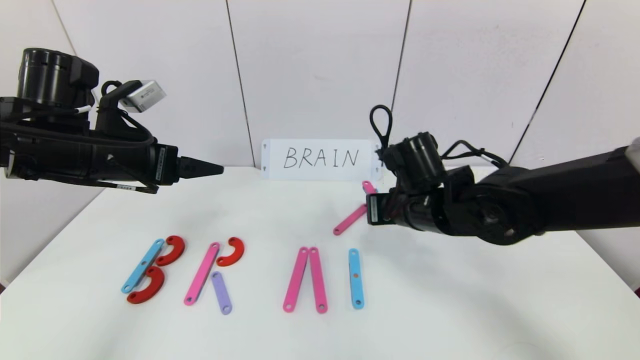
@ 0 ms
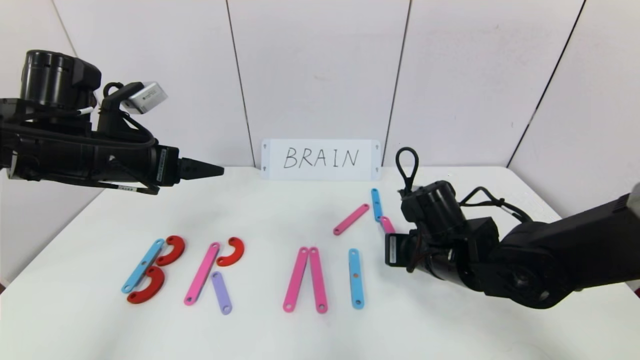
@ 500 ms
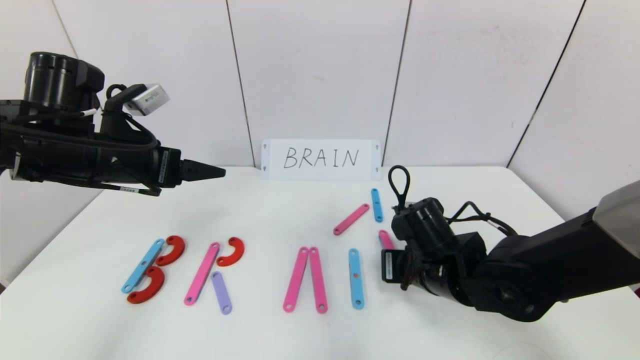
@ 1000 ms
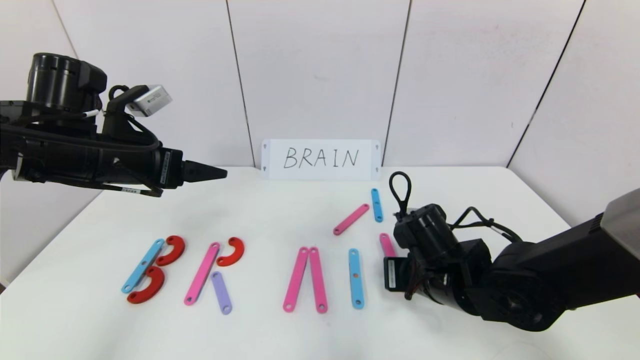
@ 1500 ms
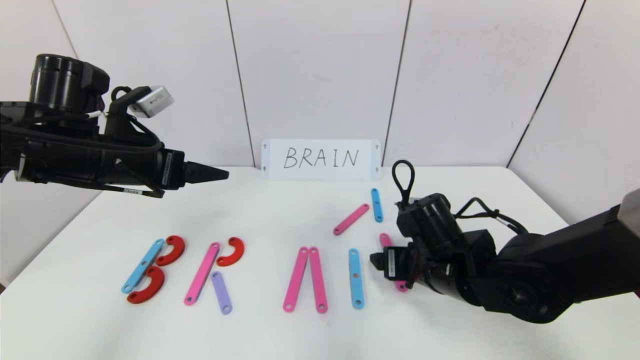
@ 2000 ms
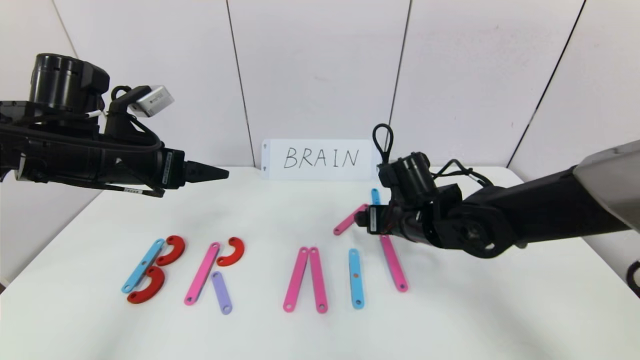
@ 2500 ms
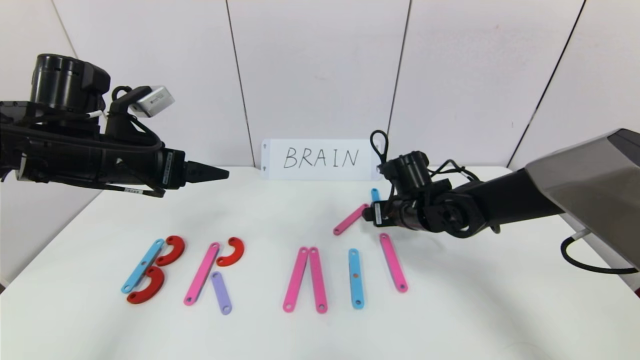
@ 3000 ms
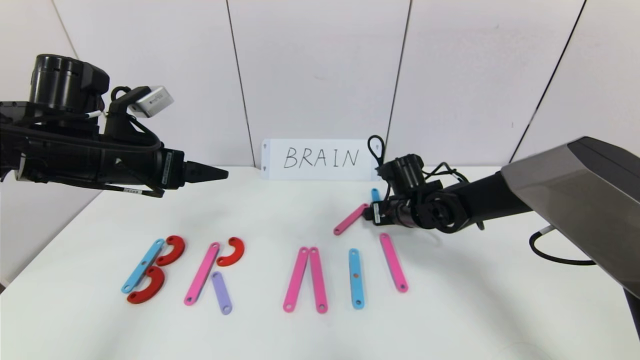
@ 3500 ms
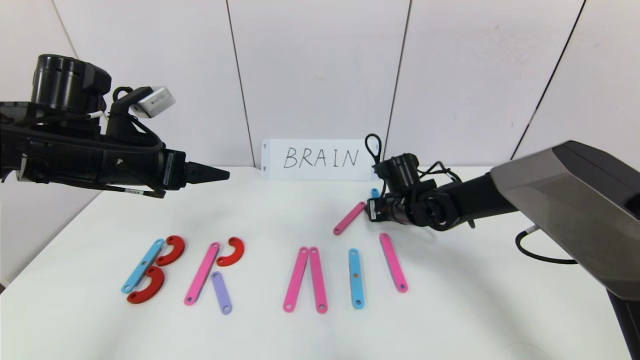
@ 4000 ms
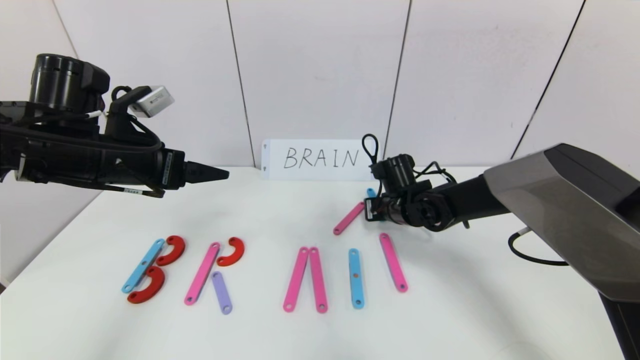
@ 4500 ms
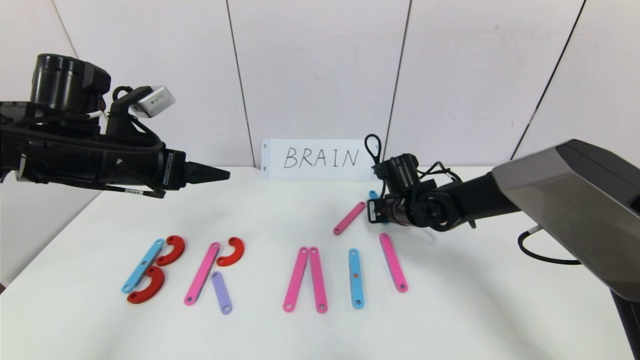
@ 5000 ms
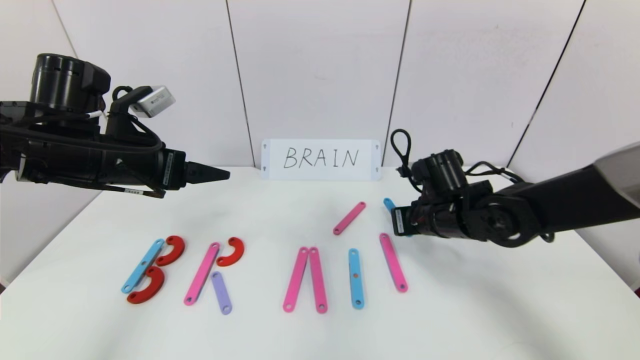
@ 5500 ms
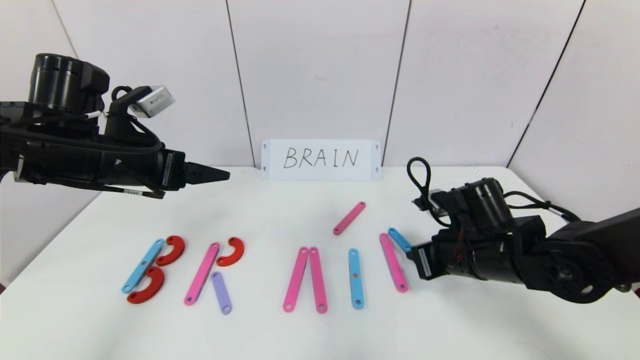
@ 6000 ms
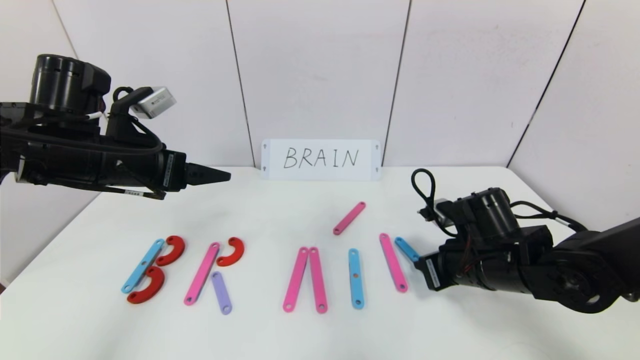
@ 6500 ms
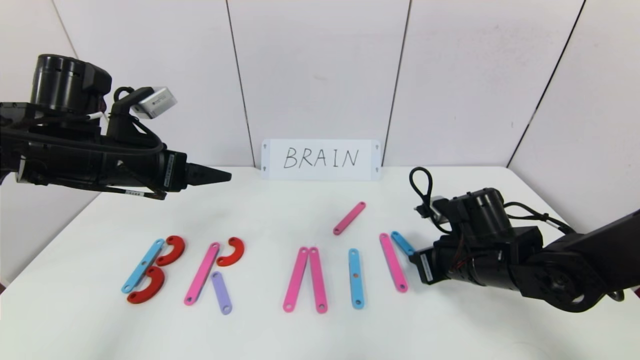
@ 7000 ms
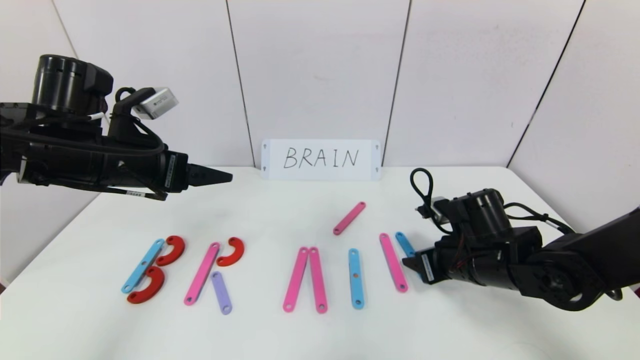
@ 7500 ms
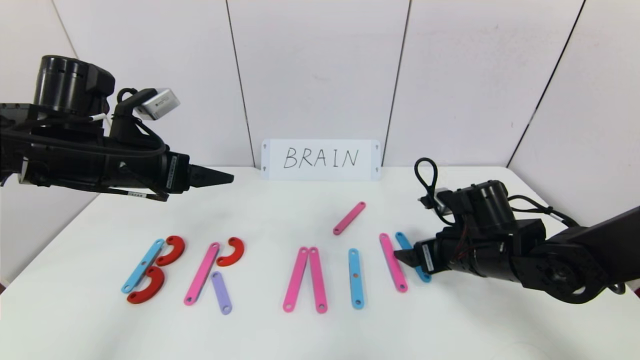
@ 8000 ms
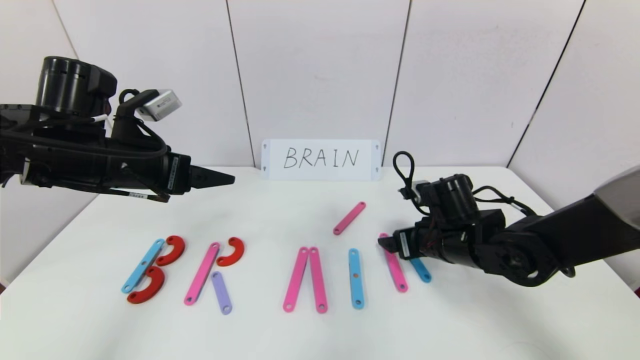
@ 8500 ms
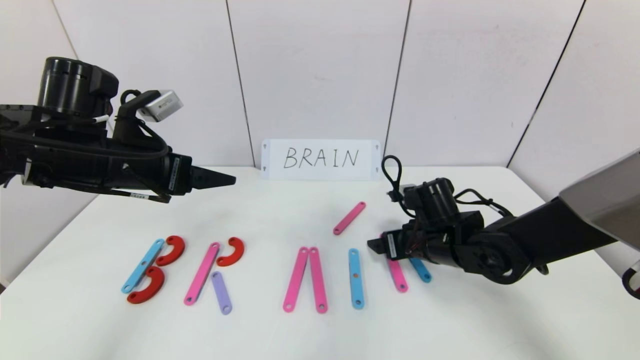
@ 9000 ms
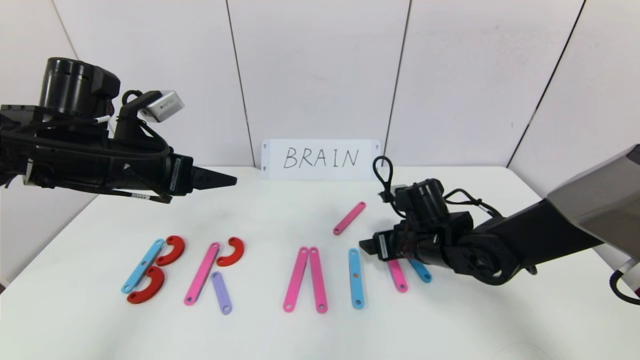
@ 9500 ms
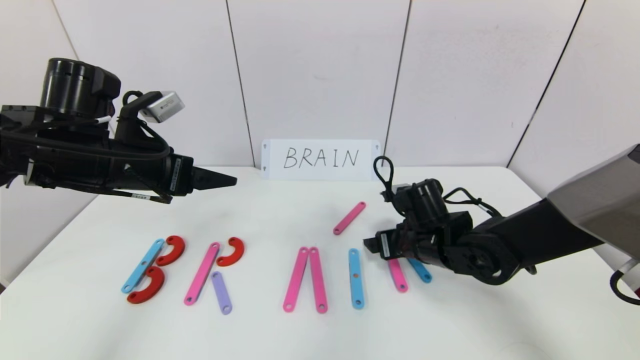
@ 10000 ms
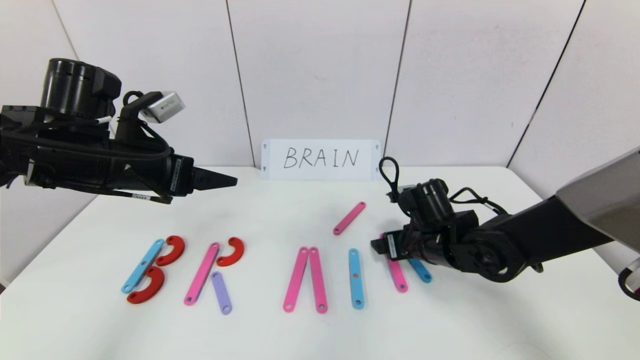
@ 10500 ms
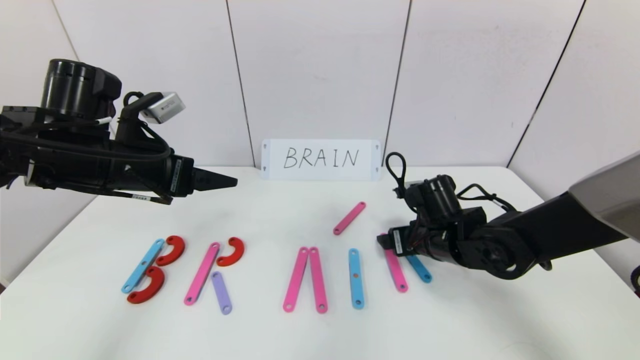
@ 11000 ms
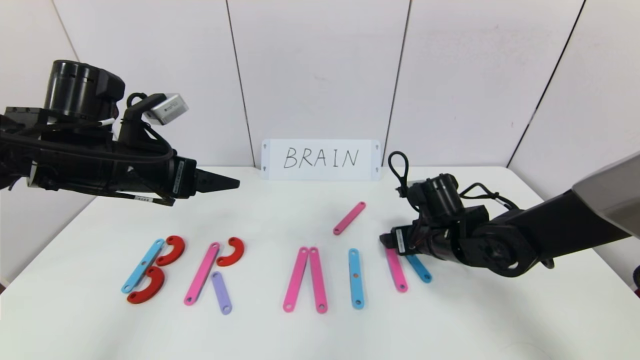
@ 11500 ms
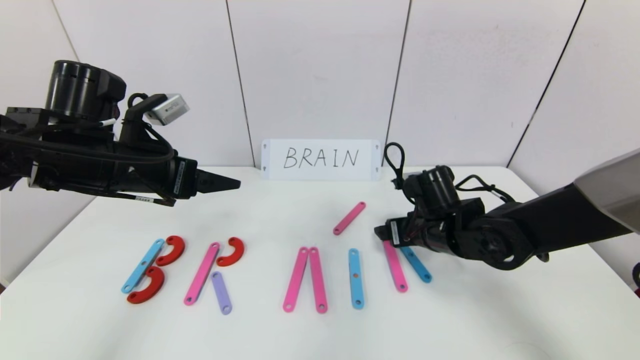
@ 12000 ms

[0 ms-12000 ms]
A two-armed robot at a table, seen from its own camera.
Task of the whole recording: rearrange the word baai as brain.
0 ms to 2000 ms: The right gripper moves downward and backward, some 10 cm, and opens its fingers.
2000 ms to 4000 ms: The right gripper moves forward, approximately 15 cm.
4000 ms to 6000 ms: The right gripper goes roughly 15 cm backward and to the right, and closes.
6000 ms to 8000 ms: The right gripper opens.
8000 ms to 10000 ms: The right gripper goes roughly 5 cm to the left.
10000 ms to 12000 ms: There are only small adjustments of the grippers.

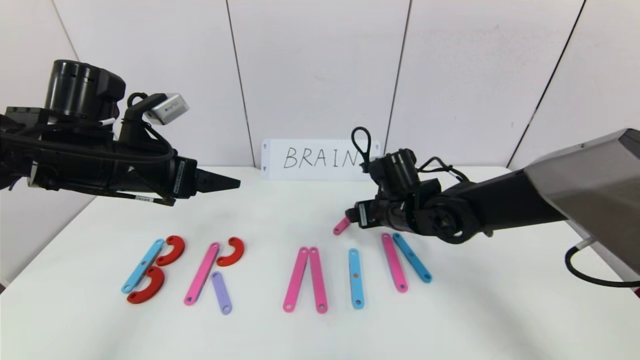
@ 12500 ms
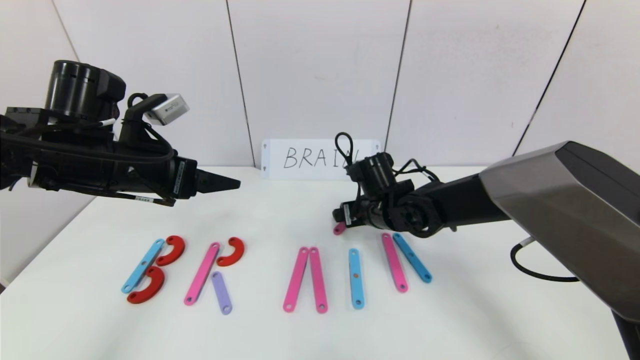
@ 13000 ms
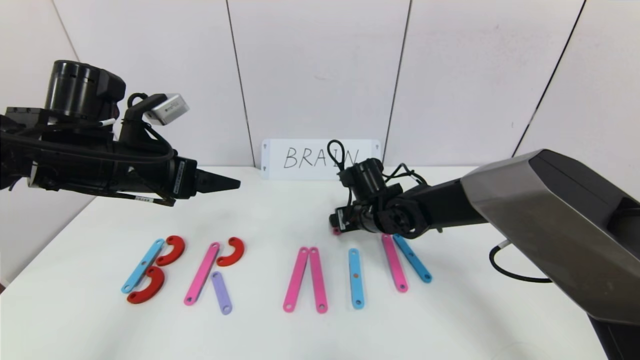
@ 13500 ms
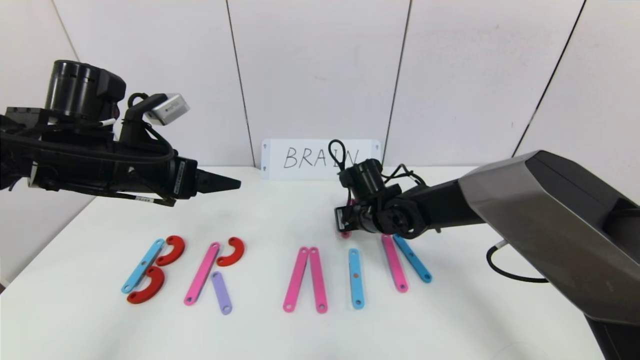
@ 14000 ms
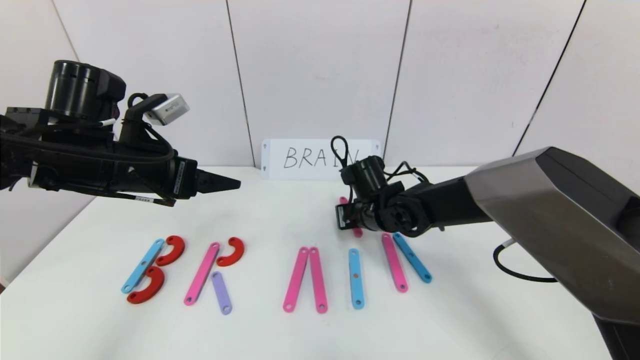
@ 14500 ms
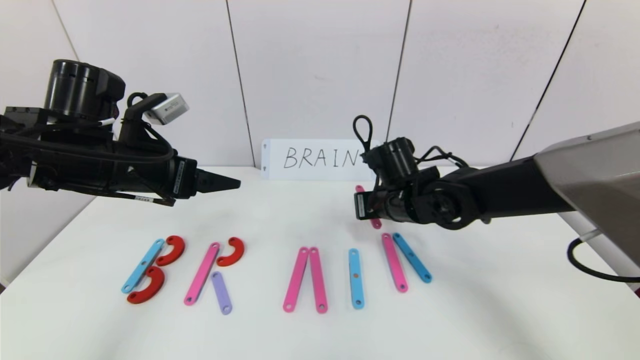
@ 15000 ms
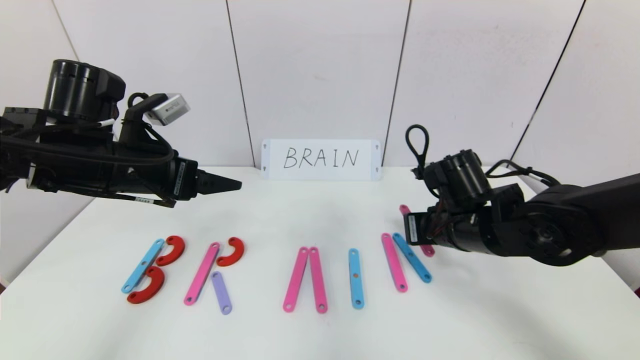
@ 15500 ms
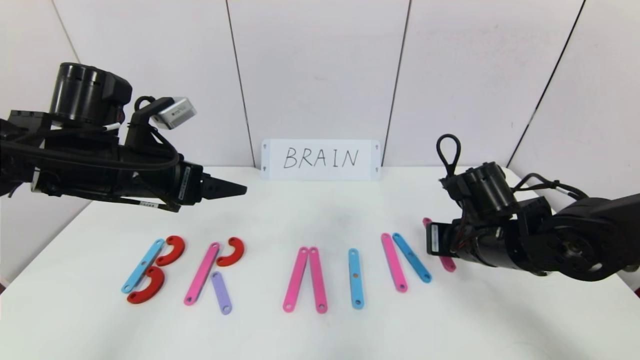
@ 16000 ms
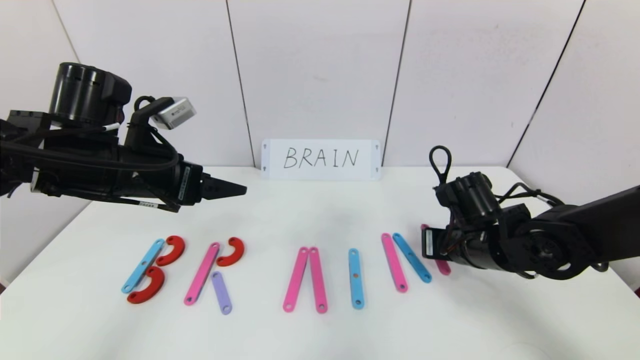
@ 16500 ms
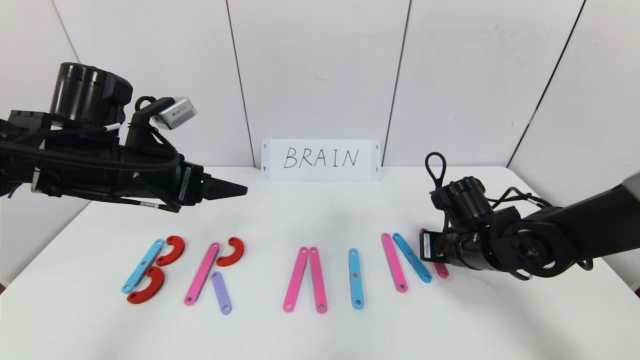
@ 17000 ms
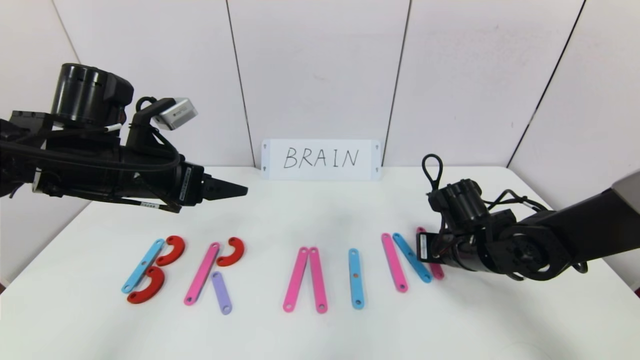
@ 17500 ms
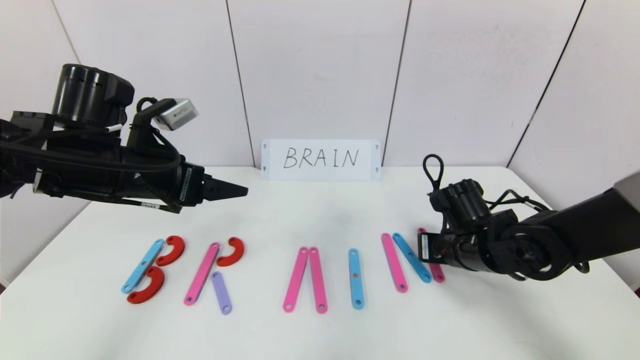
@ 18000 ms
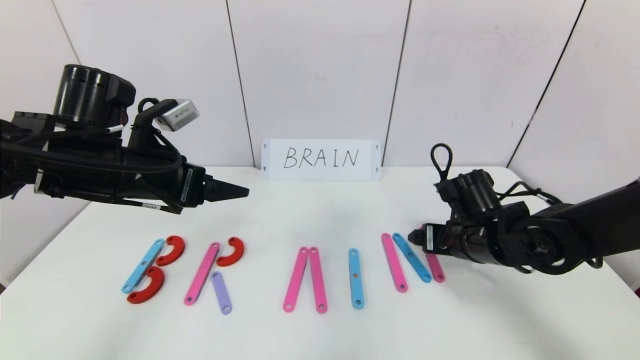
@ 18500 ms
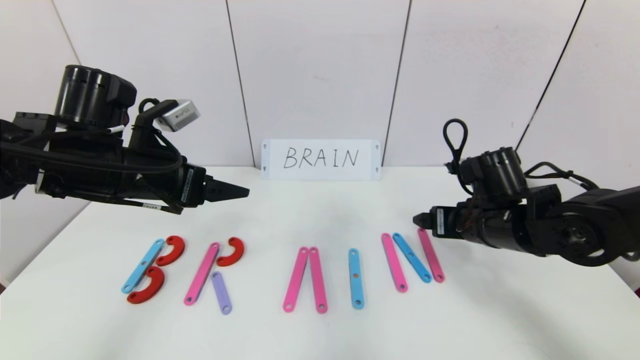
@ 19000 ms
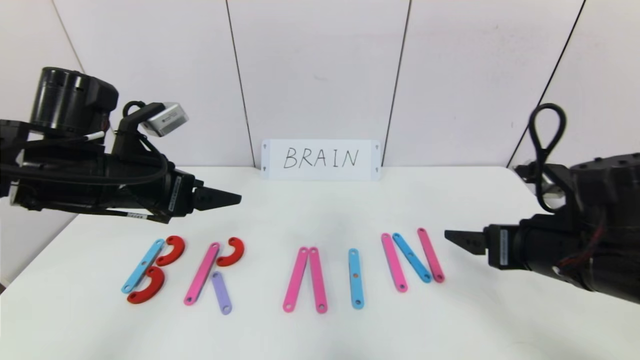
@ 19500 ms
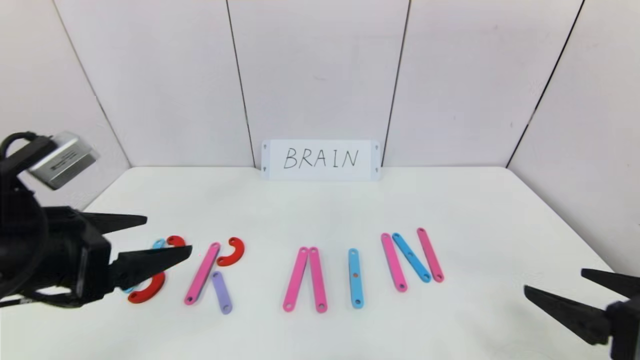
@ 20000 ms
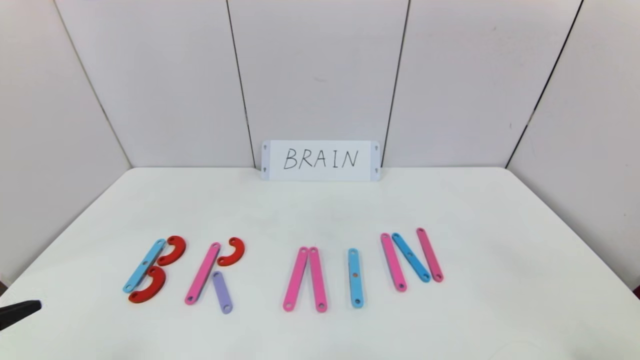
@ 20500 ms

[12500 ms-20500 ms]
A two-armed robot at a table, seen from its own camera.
Task of the whole recording: rearrange the word baai as brain.
Step, 12500 ms to 18500 ms: Place the character N after character I.
12500 ms to 14500 ms: The right gripper closes.
14500 ms to 16500 ms: The right gripper shifts about 15 cm to the right and backward.
16500 ms to 18500 ms: The right gripper opens up.
18500 ms to 20500 ms: The right gripper heads backward and to the right, covering about 35 cm; the left gripper moves backward, approximately 25 cm.
